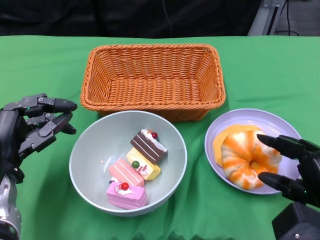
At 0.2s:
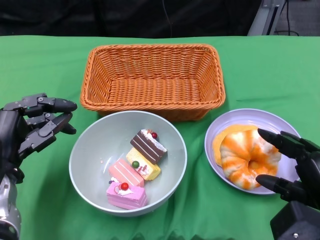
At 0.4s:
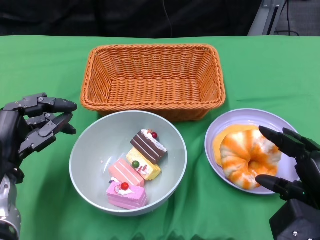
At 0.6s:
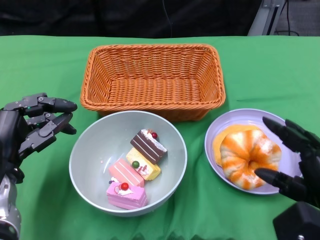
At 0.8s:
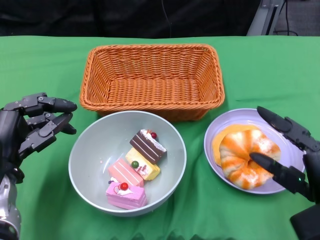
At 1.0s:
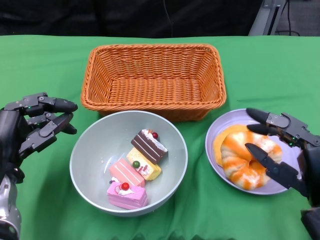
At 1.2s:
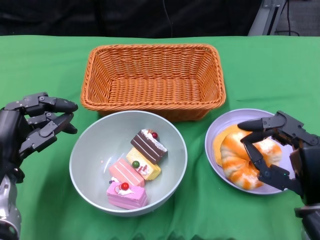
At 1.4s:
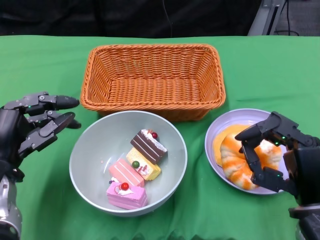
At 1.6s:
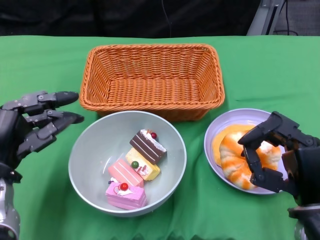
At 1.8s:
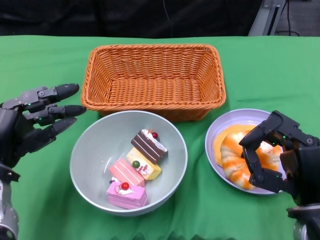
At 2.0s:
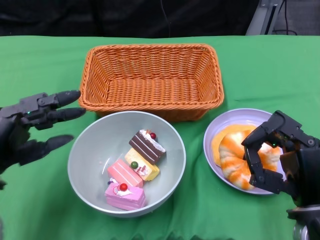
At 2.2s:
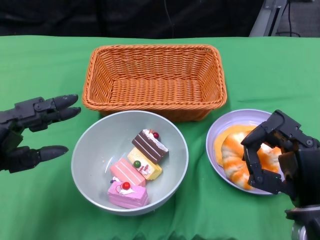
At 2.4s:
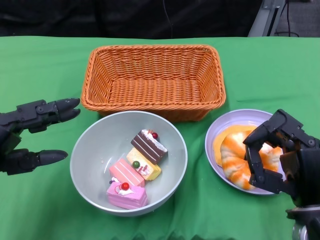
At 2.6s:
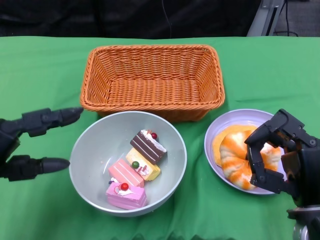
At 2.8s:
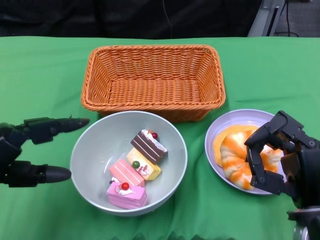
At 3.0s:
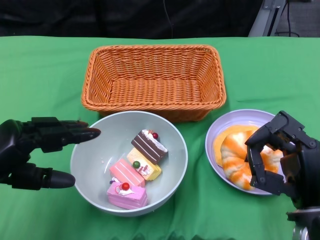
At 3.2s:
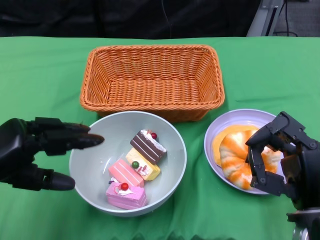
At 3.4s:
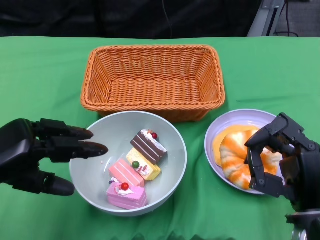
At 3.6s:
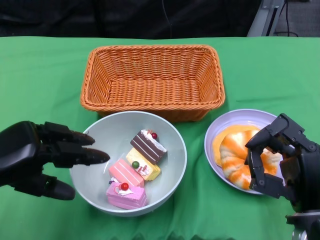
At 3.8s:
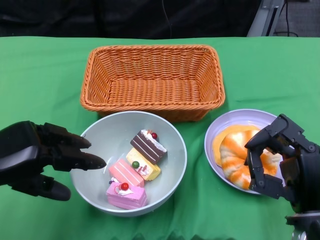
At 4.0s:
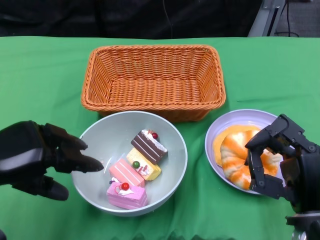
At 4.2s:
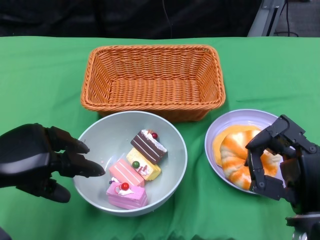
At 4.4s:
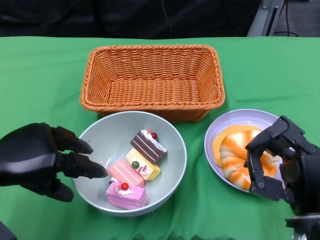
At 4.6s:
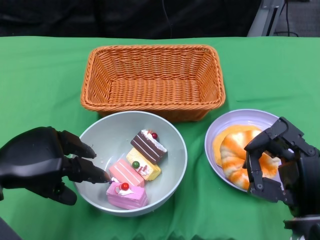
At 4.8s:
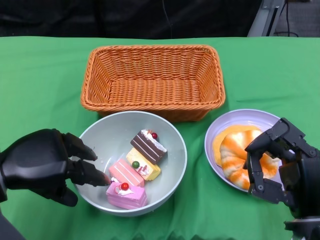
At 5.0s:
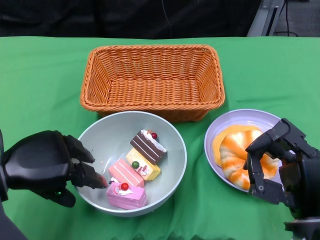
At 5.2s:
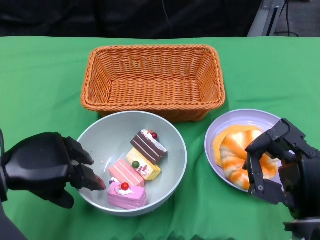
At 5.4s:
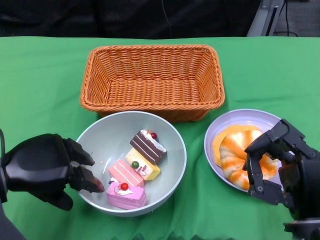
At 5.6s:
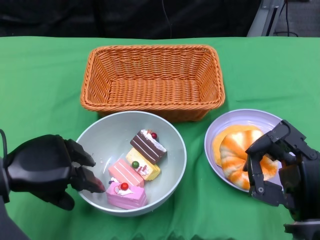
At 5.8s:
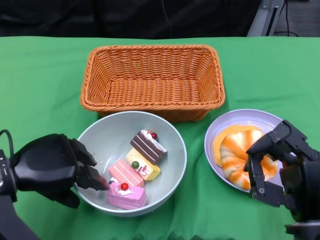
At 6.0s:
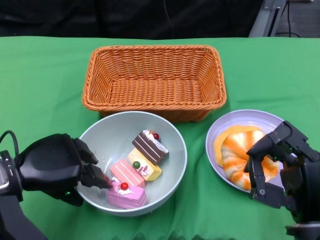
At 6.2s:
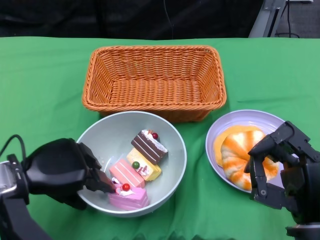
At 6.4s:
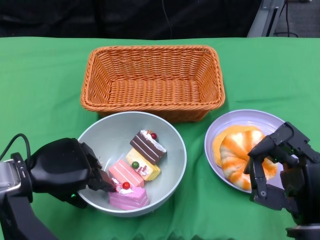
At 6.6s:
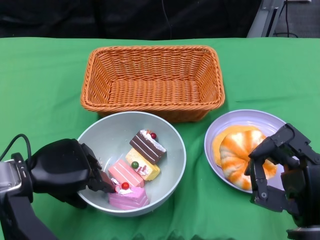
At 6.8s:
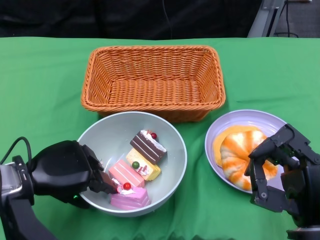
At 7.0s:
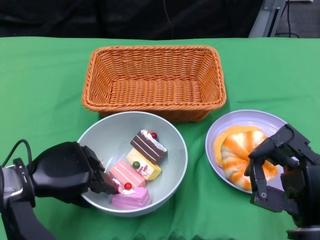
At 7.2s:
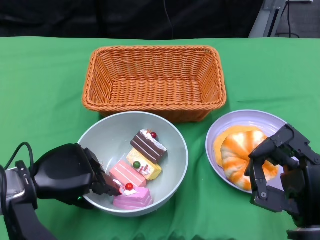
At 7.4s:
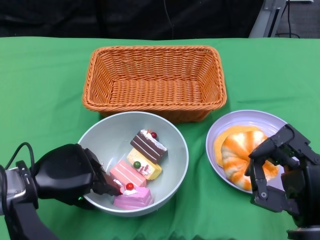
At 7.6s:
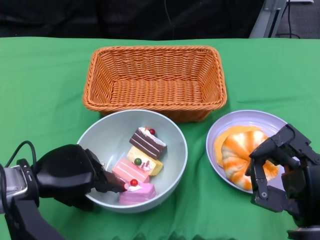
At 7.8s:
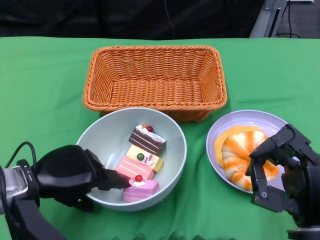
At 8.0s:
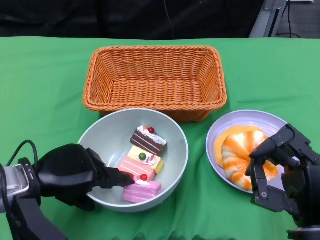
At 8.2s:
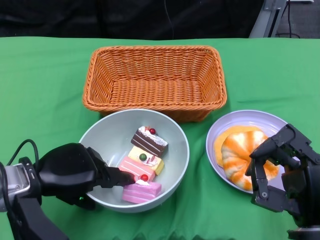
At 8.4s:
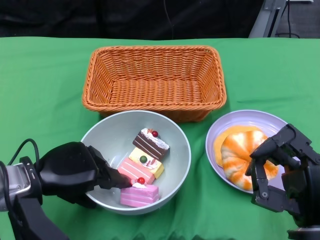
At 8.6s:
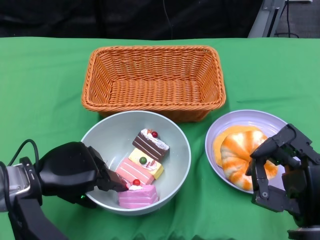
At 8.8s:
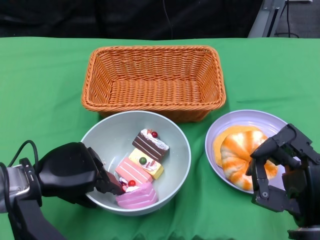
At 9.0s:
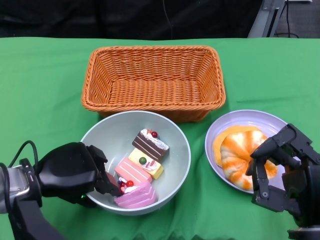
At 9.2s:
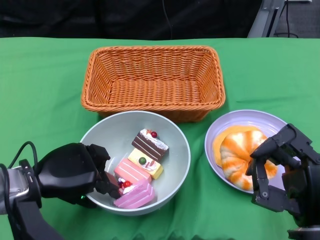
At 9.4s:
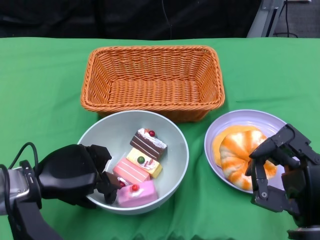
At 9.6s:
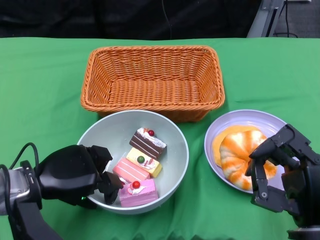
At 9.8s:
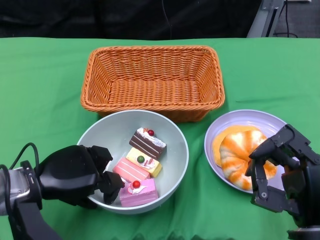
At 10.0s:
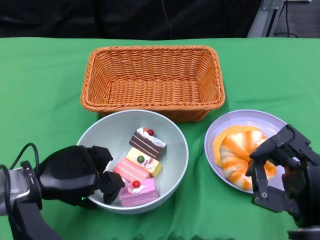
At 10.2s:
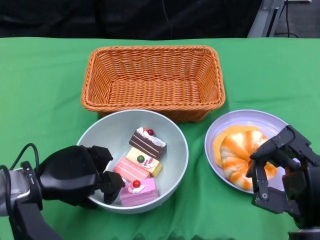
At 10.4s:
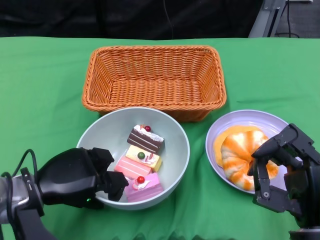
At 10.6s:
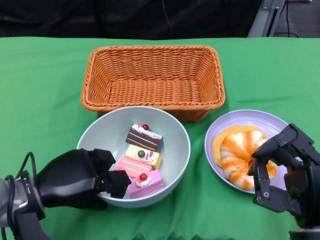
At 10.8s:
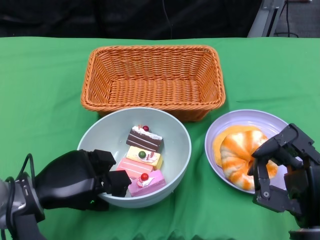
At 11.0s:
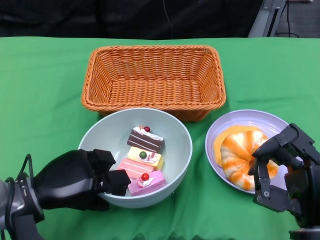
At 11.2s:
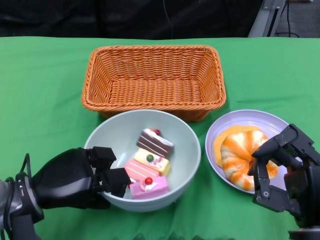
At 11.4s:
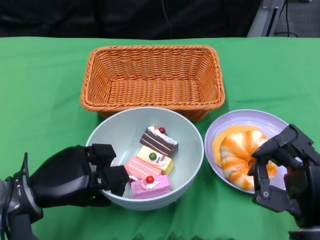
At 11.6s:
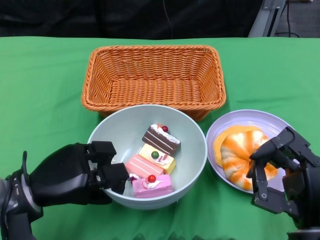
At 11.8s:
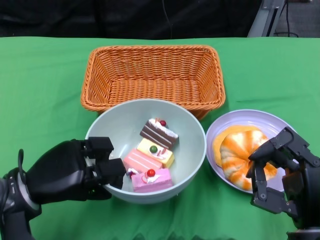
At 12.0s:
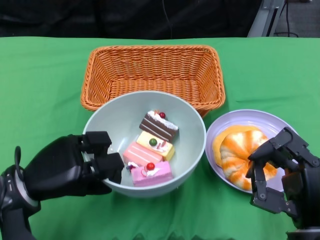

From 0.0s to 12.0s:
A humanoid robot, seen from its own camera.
Step, from 0.8s to 10.2s: Grasp the bowl with the left gripper.
From 0.0s to 1.6s: The right hand shifts by some 5 cm.
From 1.6s to 3.0s: The left hand changes place by roughly 5 cm.
From 4.4s to 6.0s: The hands stay close to where they were, moving slightly.
From 6.0s to 7.6s: There are only small adjustments of the hands.
From 7.6s to 9.0s: The two hands keep their place.
From 9.0s to 10.4s: The hands stay close to where they were, moving slightly.

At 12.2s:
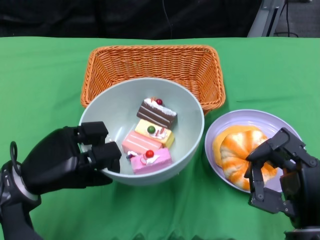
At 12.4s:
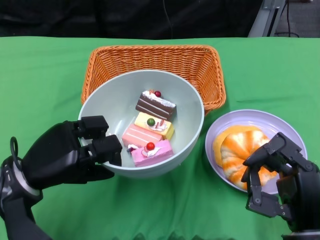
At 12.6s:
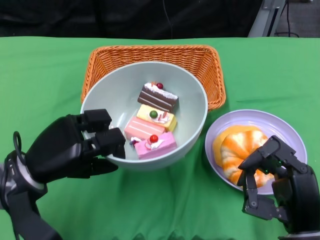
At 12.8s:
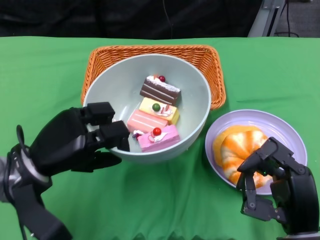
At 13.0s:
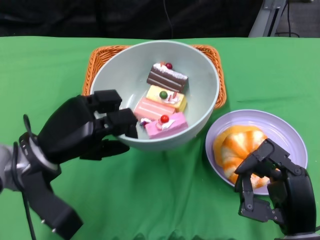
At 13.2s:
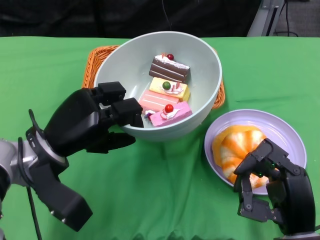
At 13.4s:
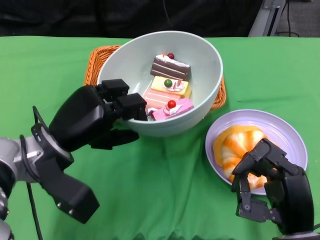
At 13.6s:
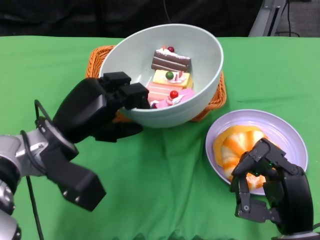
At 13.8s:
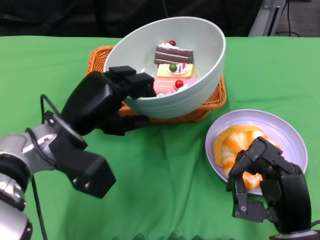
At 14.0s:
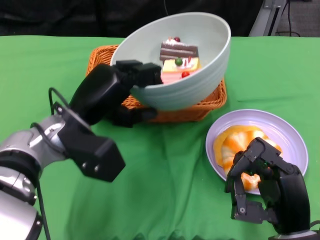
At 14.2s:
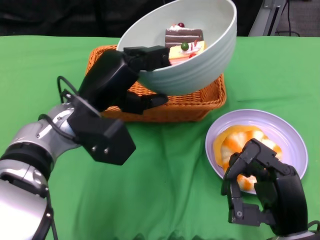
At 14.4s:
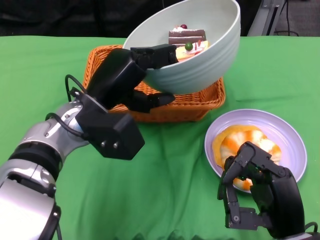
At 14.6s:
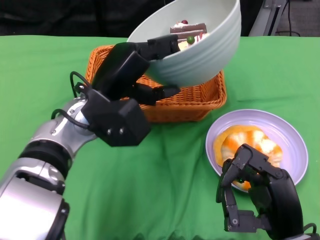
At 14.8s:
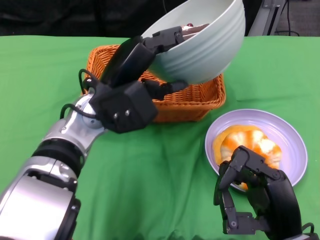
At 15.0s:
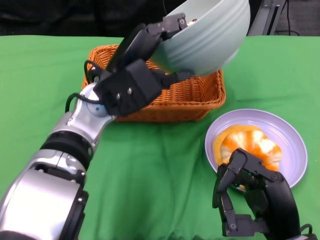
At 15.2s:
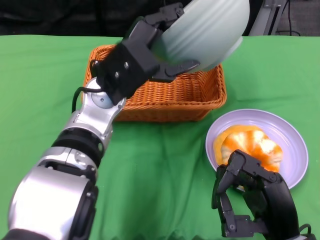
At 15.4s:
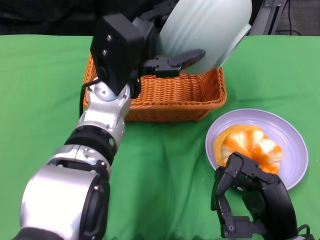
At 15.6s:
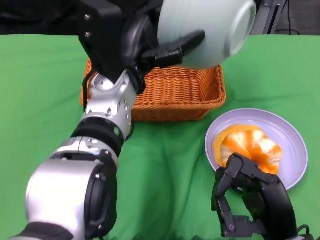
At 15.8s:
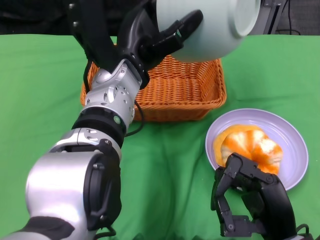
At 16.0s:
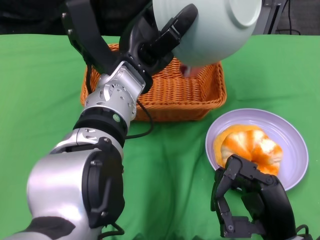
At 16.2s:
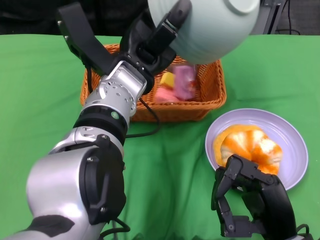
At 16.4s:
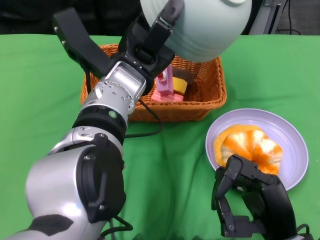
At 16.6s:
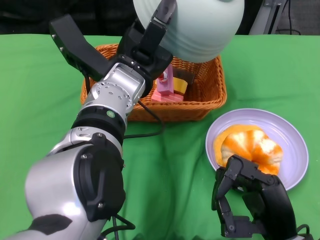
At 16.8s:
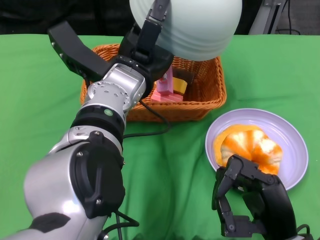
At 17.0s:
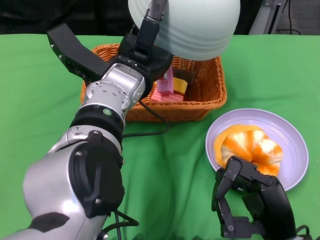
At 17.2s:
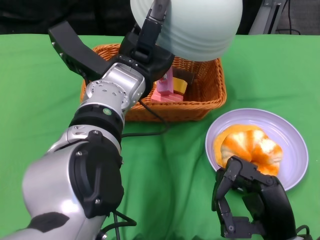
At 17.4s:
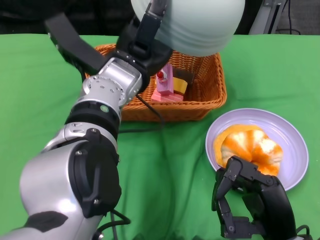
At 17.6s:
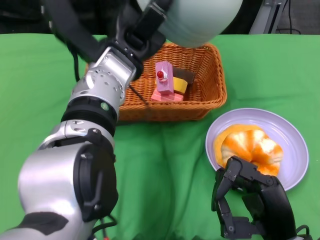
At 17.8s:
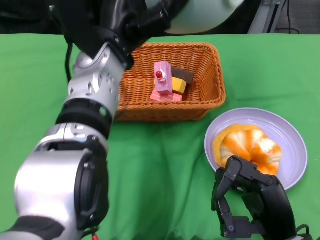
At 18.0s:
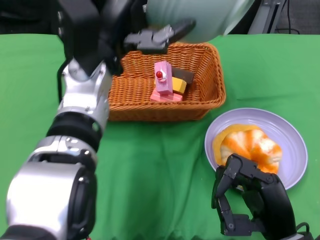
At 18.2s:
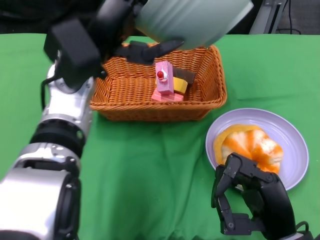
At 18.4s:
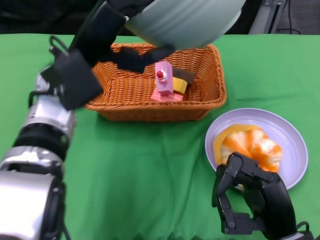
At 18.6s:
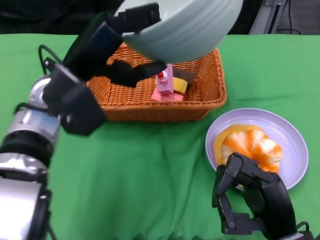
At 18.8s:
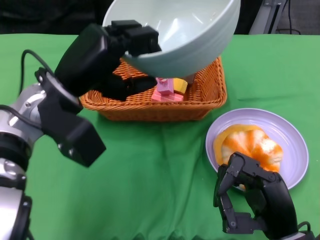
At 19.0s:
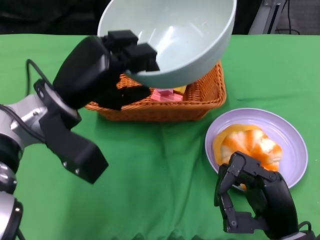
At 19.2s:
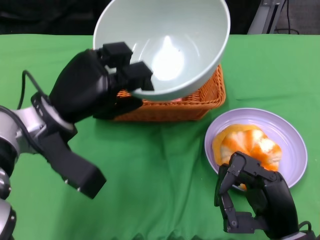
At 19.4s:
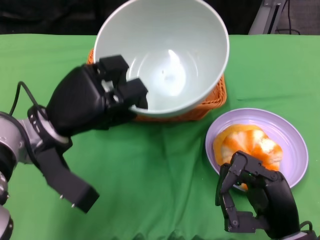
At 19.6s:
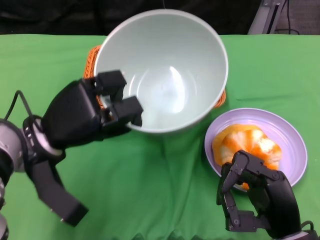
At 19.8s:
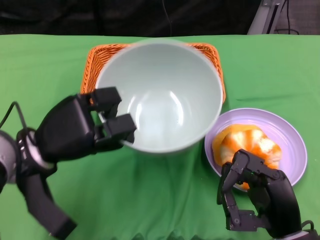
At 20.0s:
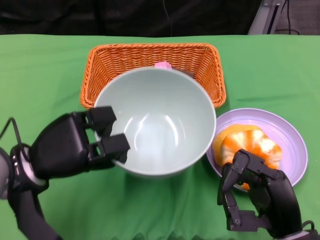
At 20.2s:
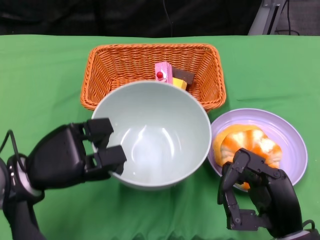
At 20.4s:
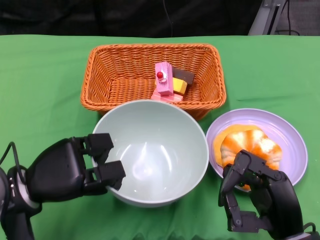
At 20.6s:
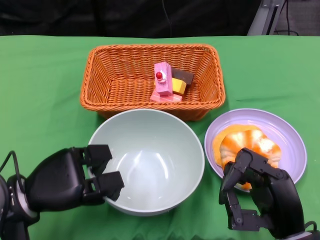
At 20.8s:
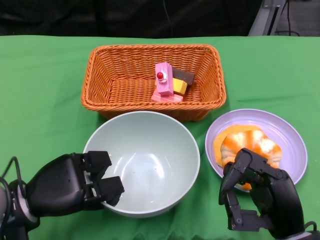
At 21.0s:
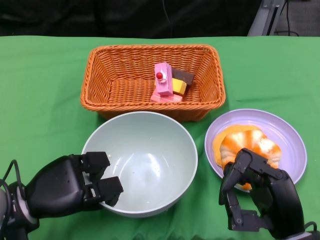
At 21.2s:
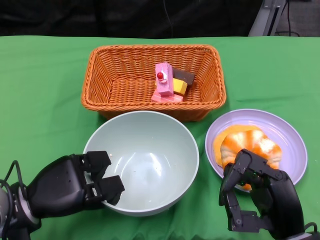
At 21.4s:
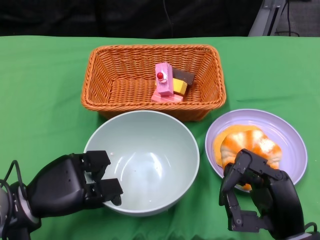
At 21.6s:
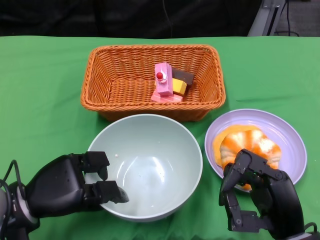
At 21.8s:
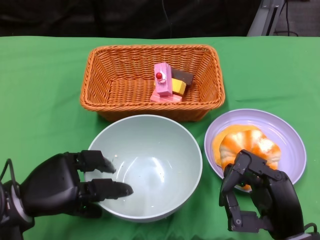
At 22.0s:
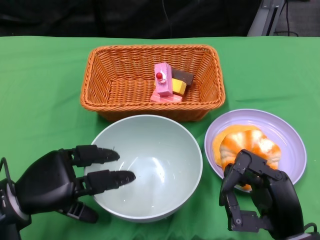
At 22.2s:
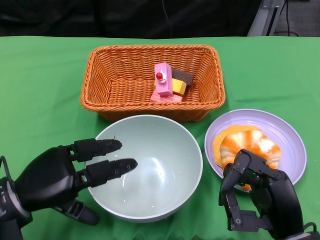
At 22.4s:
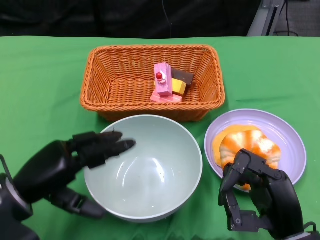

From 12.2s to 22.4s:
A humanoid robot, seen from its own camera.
Step, from 12.2s to 17.2s: Pour the cake into the basket with the left gripper.
Step, from 17.4s to 21.8s: Place the bowl on the table with the left gripper.
From 12.2s to 13.6s: The left hand is displaced to the right by roughly 5 cm.
From 13.6s to 15.2s: The left hand shifts roughly 10 cm to the right and upward.
From 18.0s to 19.4s: The left hand travels downward and to the left by about 10 cm.
From 19.4s to 21.0s: The left hand heads downward, backward and to the left, covering some 10 cm.
